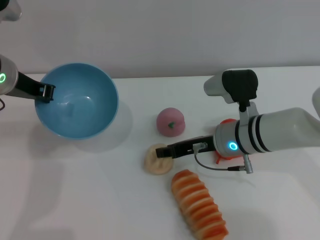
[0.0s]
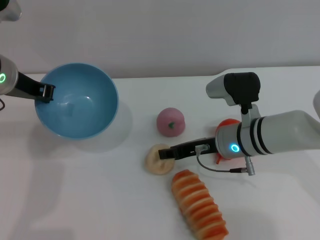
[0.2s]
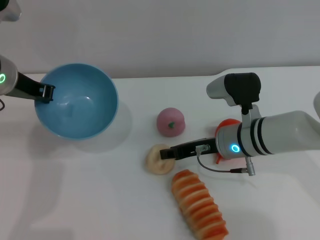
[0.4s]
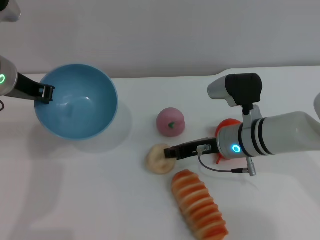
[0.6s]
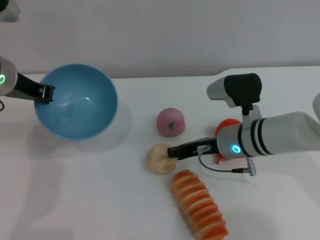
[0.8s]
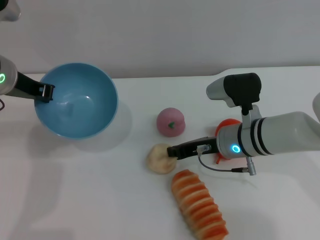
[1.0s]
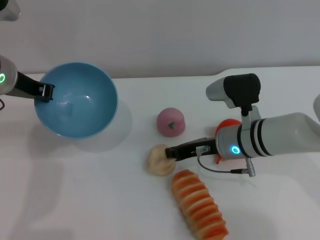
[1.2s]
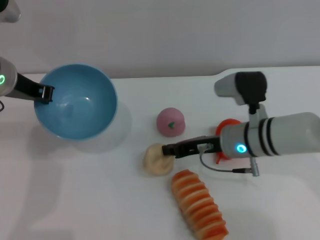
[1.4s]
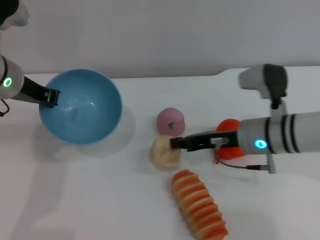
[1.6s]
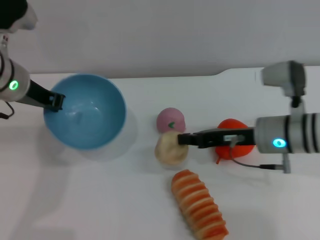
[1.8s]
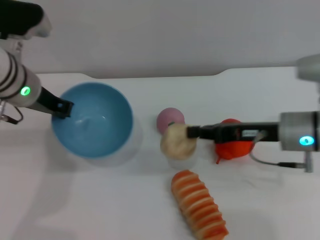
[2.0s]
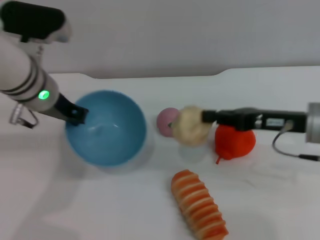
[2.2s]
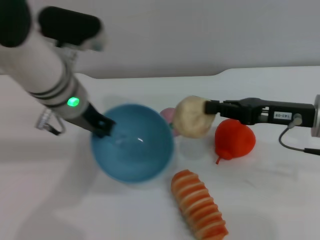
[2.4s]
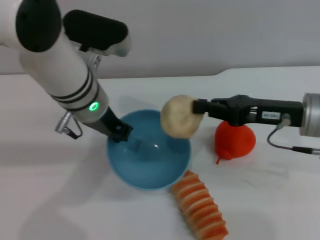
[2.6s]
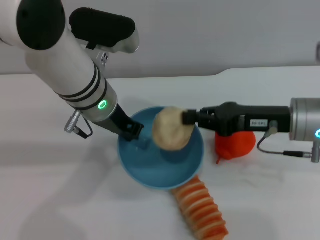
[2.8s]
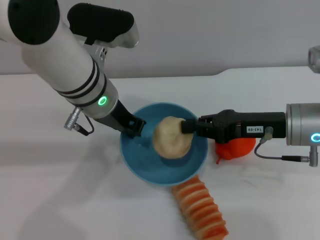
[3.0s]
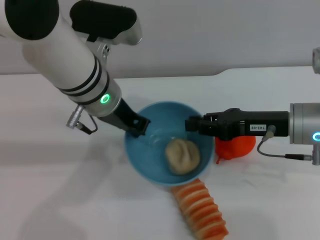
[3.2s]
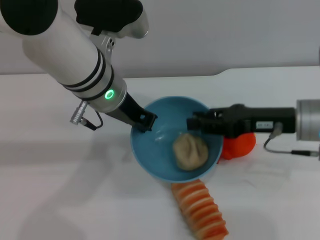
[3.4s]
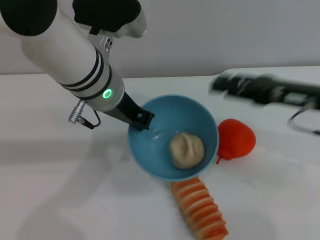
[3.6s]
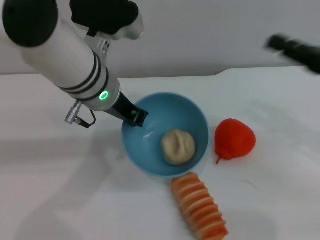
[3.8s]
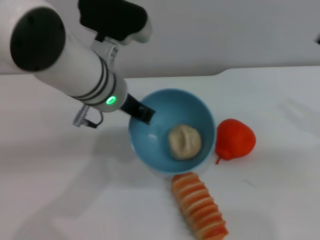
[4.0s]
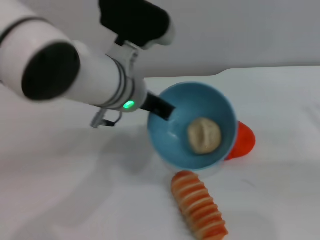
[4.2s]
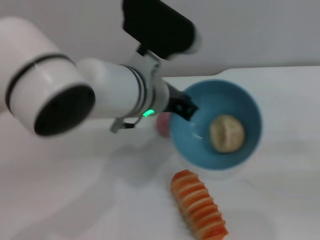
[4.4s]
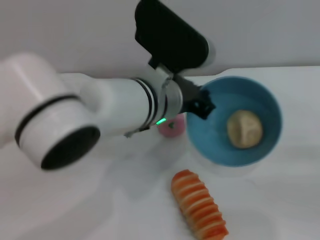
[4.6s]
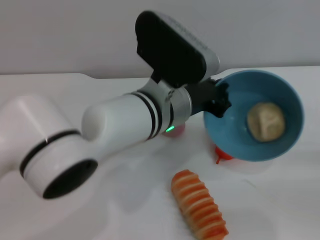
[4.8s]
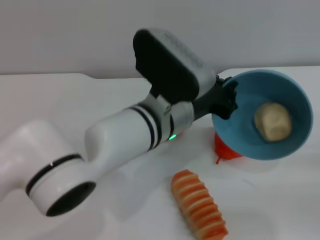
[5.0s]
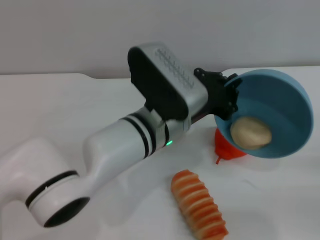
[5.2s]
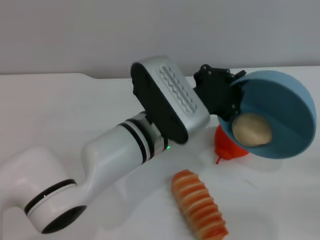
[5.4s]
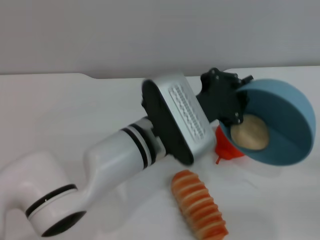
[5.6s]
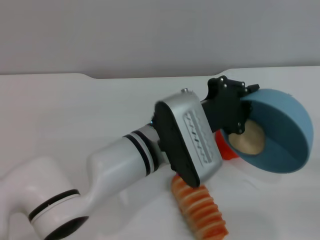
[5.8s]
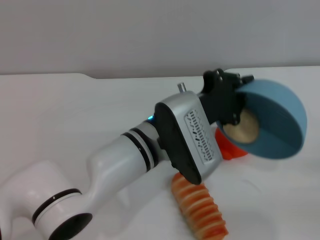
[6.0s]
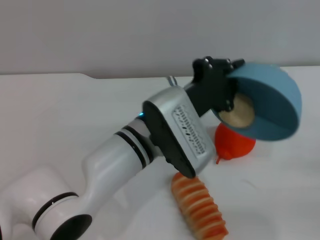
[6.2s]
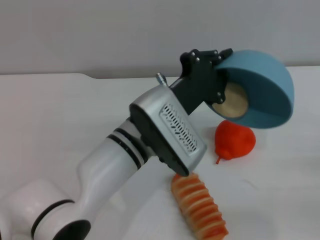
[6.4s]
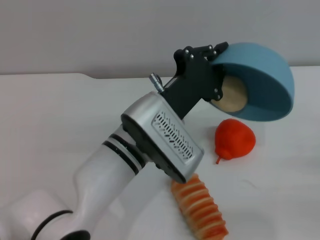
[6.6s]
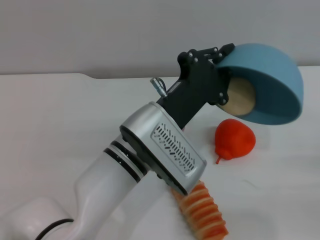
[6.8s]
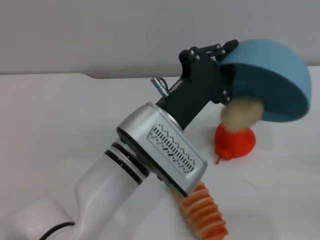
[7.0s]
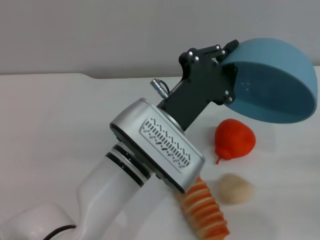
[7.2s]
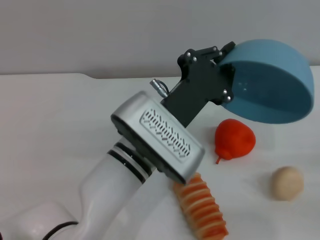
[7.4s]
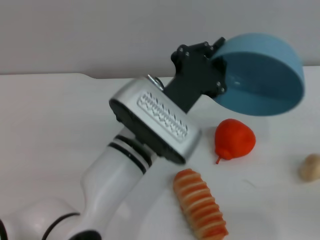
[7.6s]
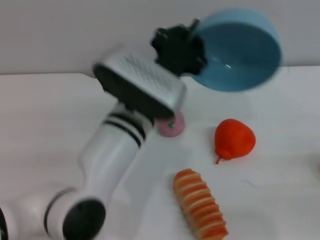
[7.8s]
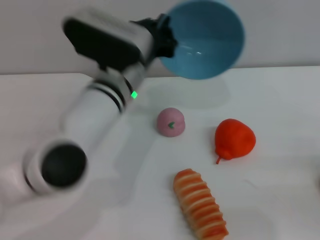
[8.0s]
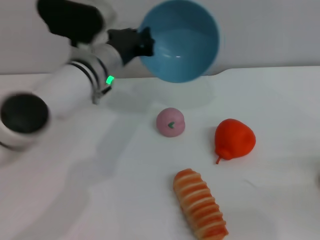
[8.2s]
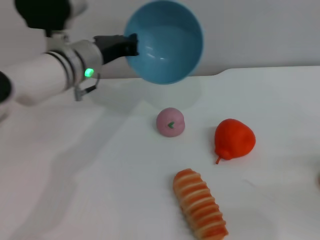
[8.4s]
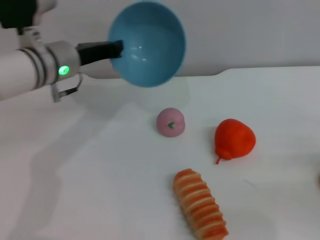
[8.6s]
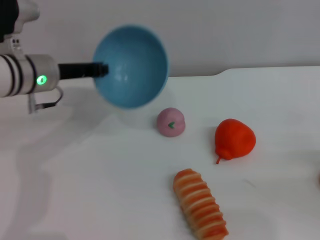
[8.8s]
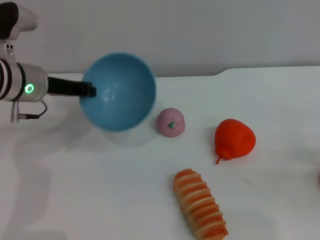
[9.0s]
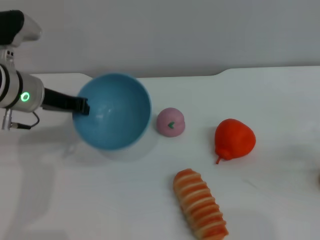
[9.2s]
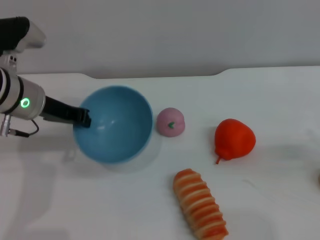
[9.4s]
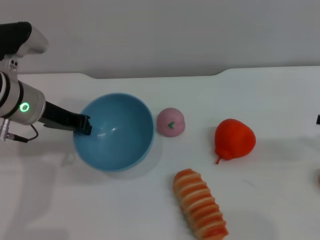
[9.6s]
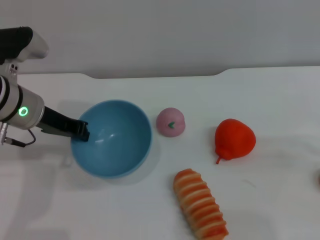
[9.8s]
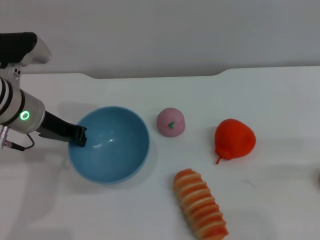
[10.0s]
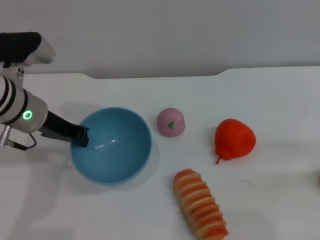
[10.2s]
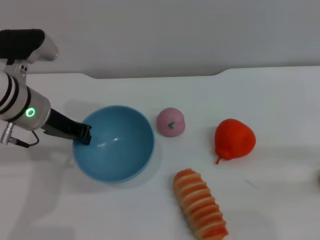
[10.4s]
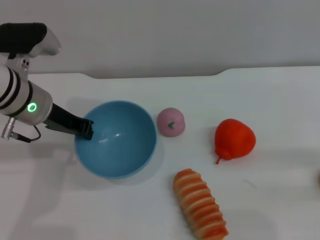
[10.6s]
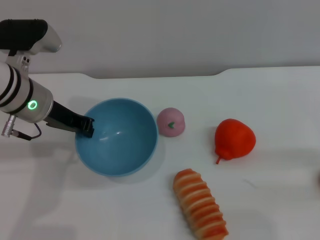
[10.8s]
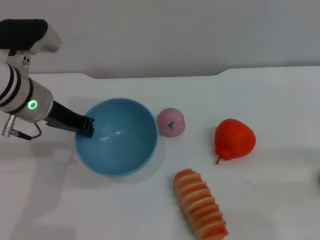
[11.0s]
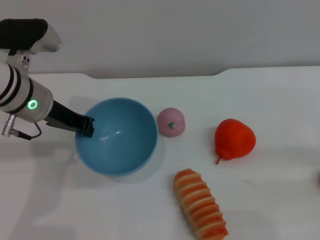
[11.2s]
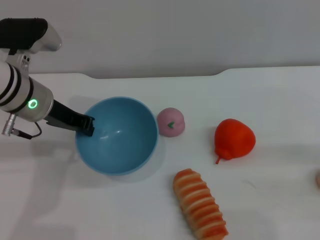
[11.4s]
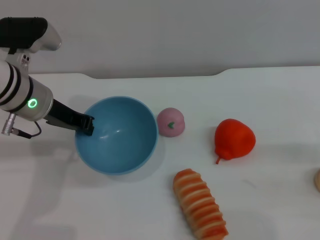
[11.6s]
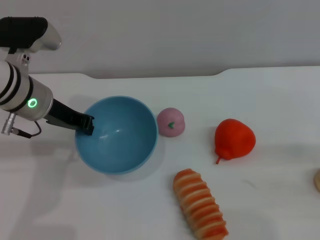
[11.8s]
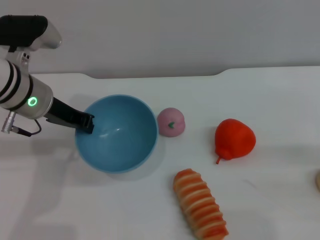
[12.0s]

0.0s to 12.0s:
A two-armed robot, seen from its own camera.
Task of the whole recording: put the egg yolk pastry into the blue bowl and pour it out repeatedly.
Step, 0.0s to 2.0s: Pick up the egg yolk pastry with the right gripper.
Step, 2.4s to 3.4s: Place the egg yolk pastry into the bowl.
Step, 3.8s to 7.4s: Pour the egg yolk pastry out of bowl.
0.0s to 1.6s: The right gripper closes its fingers.
1.6s to 3.0s: The left gripper moves to the right, some 15 cm, while the right gripper moves upward, roughly 5 cm.
3.0s to 4.4s: The right gripper shifts about 20 cm to the right, and opens up. The left gripper moves to the right, some 5 cm.
4.4s to 6.0s: The left gripper heads downward, covering approximately 10 cm.
7.6s to 9.0s: The left gripper goes about 20 cm to the left and forward.
9.0s to 10.4s: The right gripper heads upward, covering about 10 cm.
10.4s to 12.0s: The right gripper is displaced downward by roughly 5 cm.

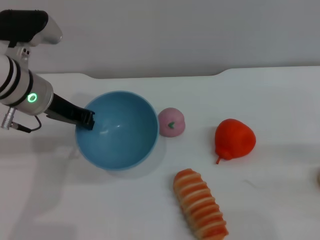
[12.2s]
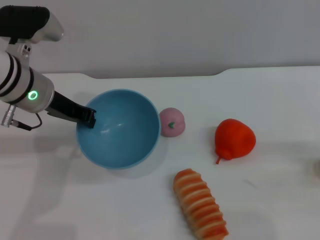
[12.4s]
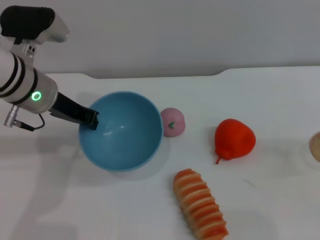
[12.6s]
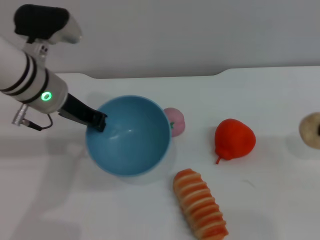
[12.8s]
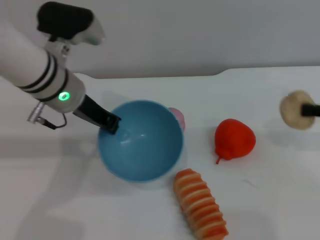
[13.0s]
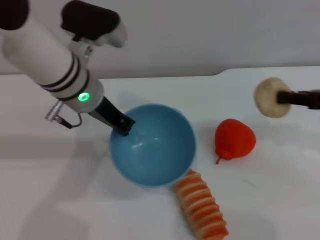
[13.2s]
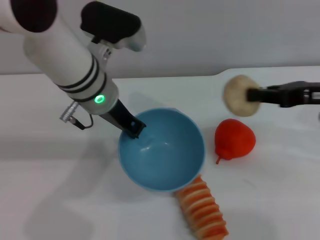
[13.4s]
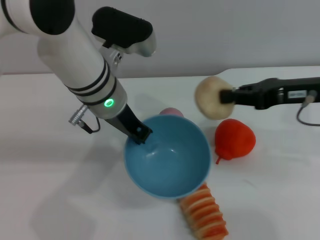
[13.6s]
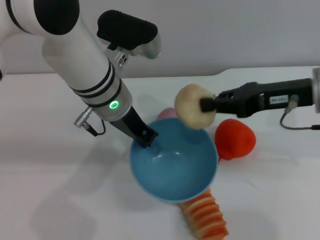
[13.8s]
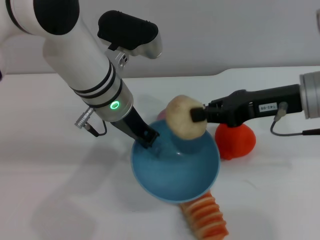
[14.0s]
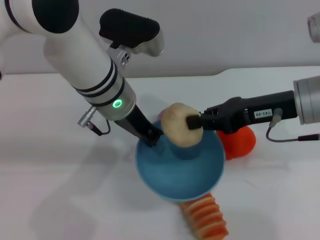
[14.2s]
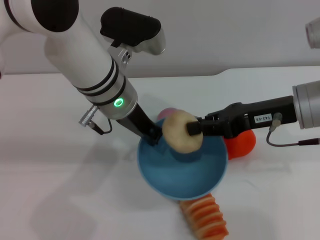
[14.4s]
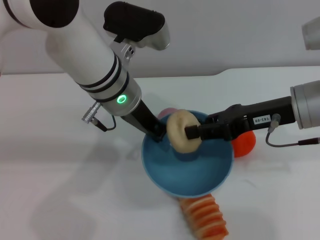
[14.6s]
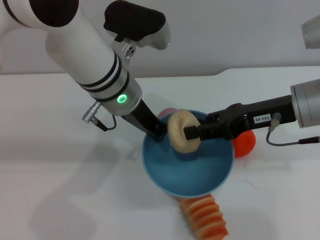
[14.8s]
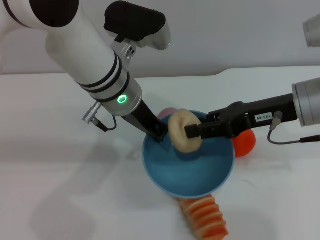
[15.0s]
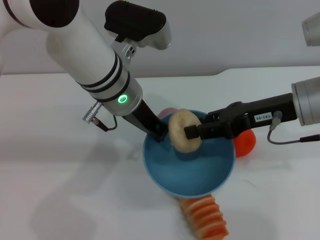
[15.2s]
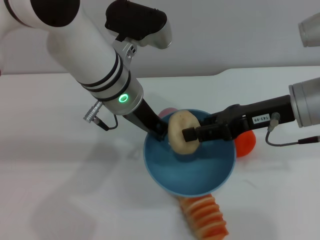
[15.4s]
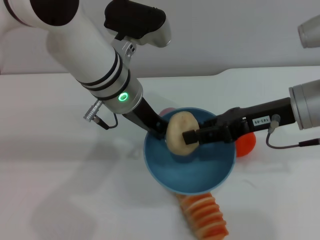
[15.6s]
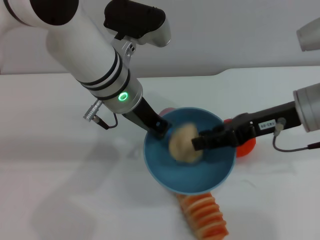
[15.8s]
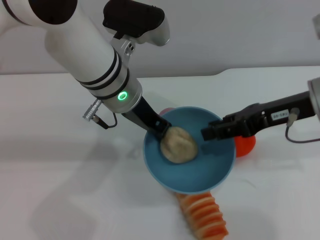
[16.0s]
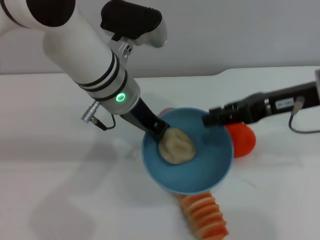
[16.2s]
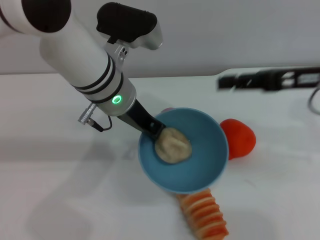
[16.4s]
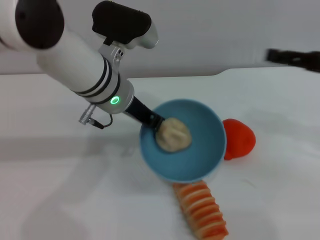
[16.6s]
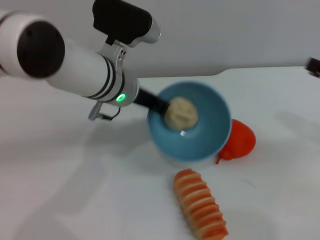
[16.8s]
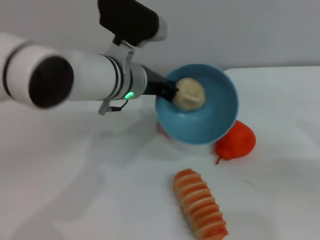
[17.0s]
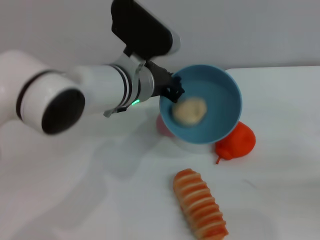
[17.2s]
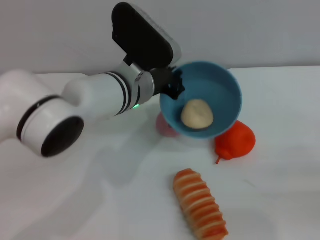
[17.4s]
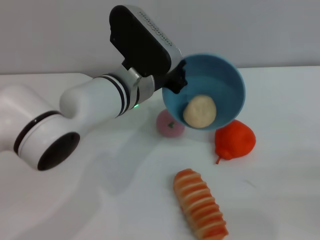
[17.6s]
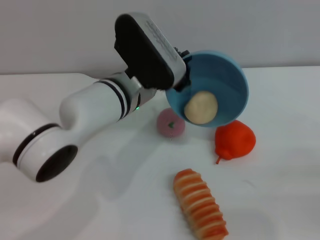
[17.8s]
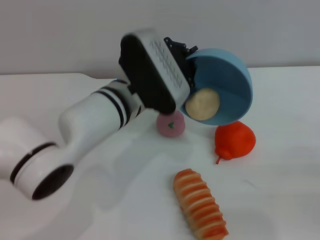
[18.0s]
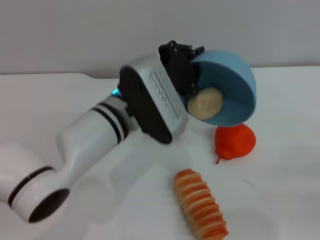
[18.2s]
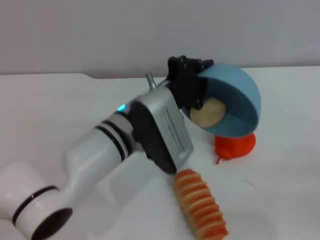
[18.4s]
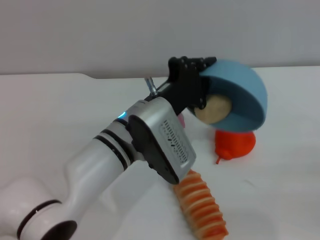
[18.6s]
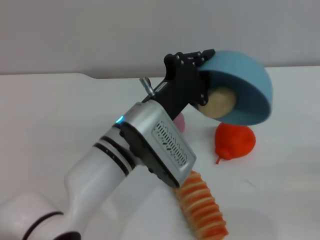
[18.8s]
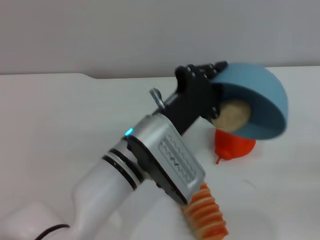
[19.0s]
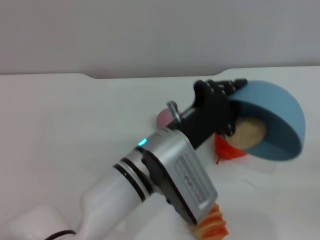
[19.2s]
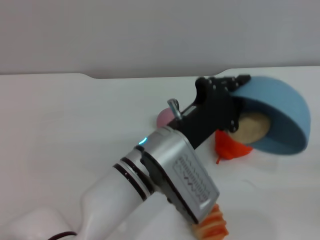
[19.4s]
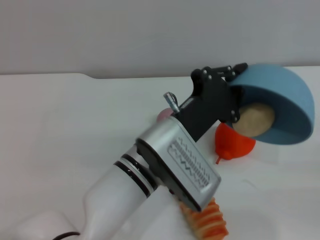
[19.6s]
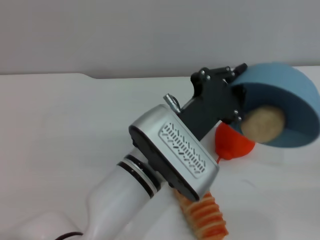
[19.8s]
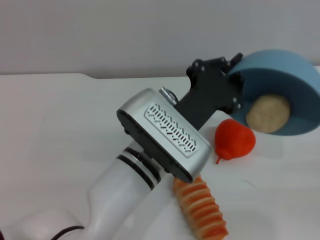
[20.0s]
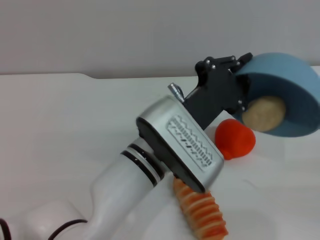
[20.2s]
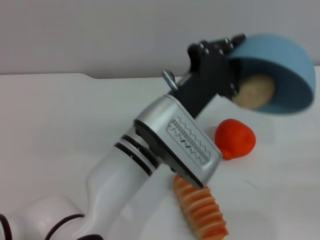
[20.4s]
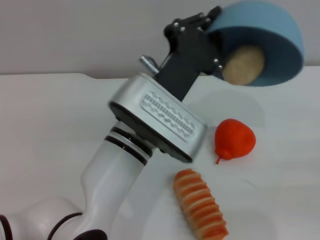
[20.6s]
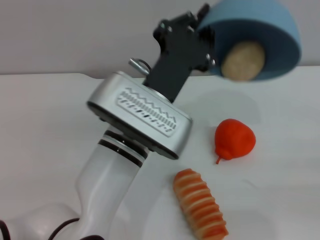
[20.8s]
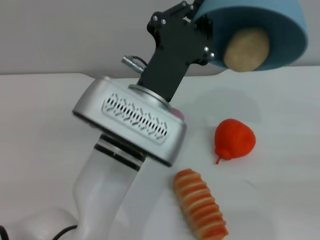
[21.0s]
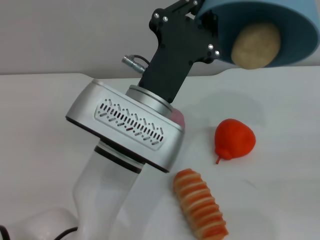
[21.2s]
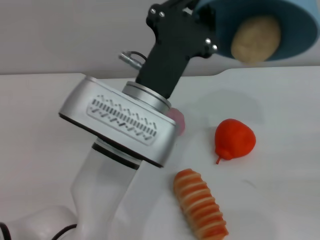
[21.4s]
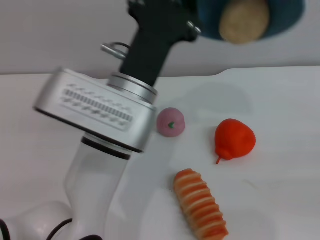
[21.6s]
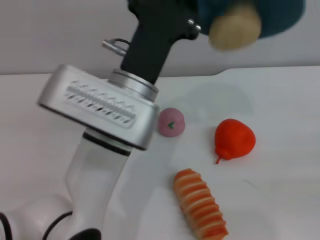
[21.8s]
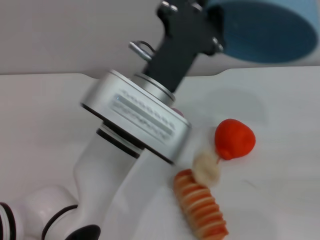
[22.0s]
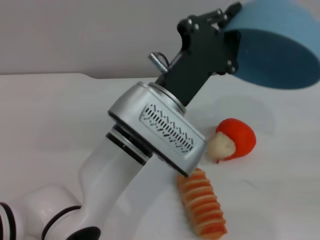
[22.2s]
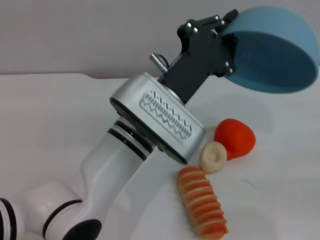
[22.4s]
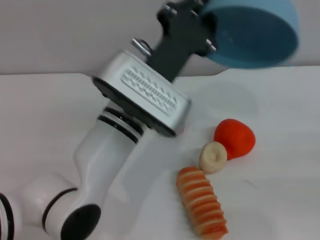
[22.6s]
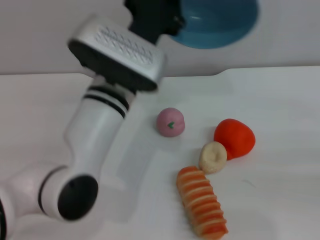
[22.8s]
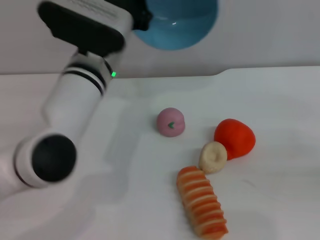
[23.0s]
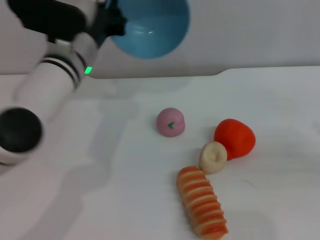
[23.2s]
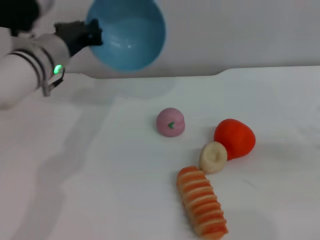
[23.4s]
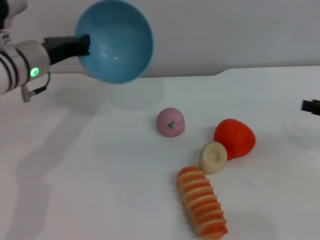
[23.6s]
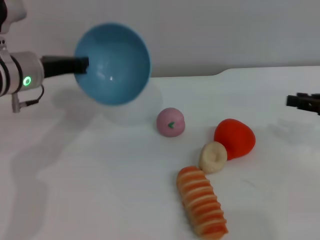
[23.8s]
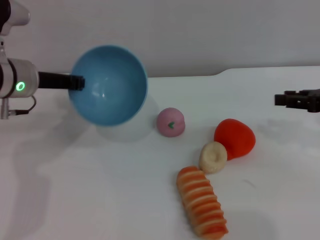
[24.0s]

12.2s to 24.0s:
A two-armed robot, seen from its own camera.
Task of the whole recording: put the egg yolk pastry into the blue bowl and pour it out repeatedly.
Step, 13.2s to 16.2s: Place the egg yolk pastry into the bowl.
Step, 16.4s to 22.4s: Pour the egg yolk pastry out of bowl.
12.2s to 13.6s: The left gripper shifts about 10 cm to the right. The right gripper goes some 15 cm to the left and upward, and closes up.
13.6s to 15.2s: The right gripper opens its fingers.
15.2s to 16.6s: The right gripper heads to the right, covering about 10 cm.
16.6s to 18.2s: The right gripper moves downward, backward and to the right, roughly 20 cm, while the left gripper moves downward, approximately 5 cm.
18.2s to 19.6s: The left gripper travels backward by roughly 5 cm.
22.6s to 24.0s: The right gripper shifts roughly 15 cm to the left, forward and upward. The left gripper travels to the left by roughly 20 cm.
